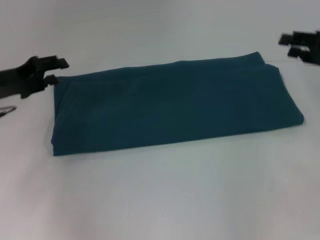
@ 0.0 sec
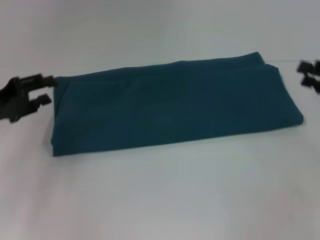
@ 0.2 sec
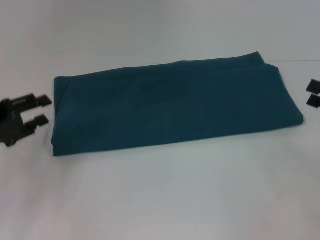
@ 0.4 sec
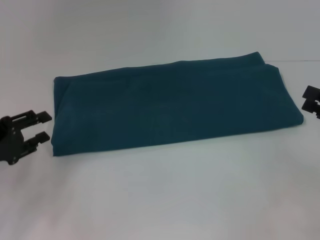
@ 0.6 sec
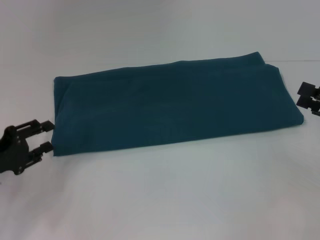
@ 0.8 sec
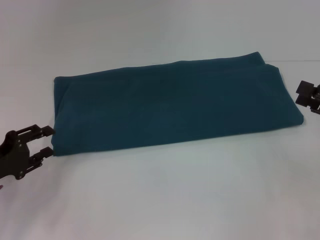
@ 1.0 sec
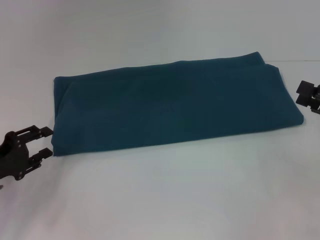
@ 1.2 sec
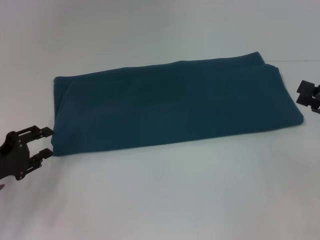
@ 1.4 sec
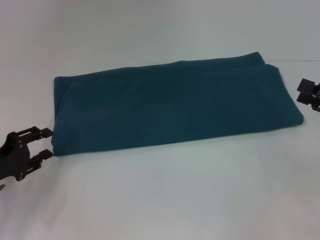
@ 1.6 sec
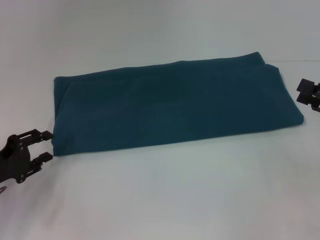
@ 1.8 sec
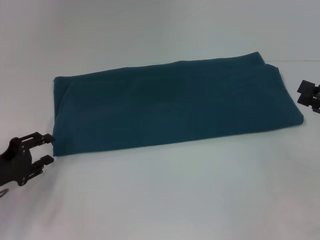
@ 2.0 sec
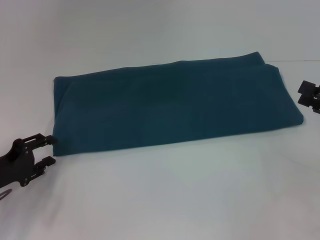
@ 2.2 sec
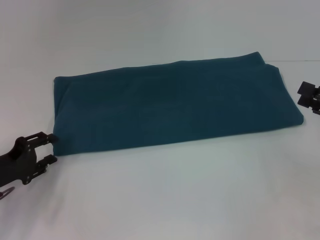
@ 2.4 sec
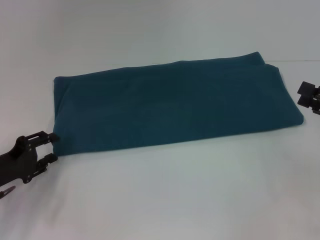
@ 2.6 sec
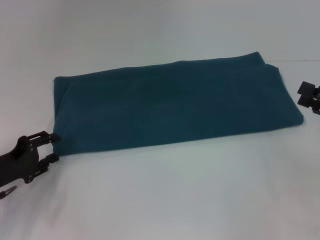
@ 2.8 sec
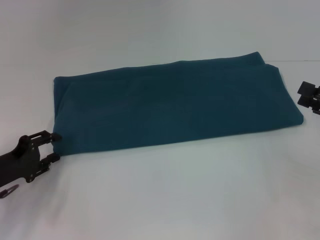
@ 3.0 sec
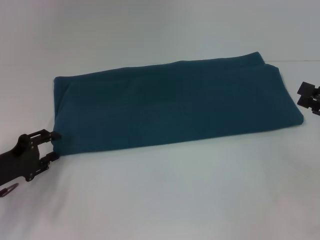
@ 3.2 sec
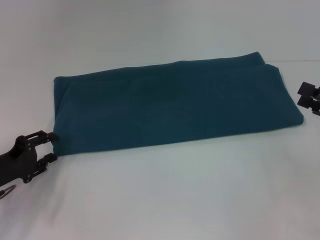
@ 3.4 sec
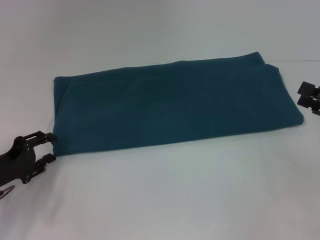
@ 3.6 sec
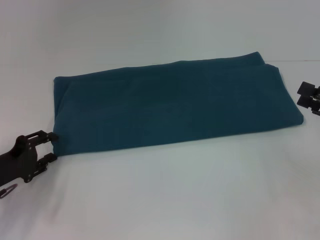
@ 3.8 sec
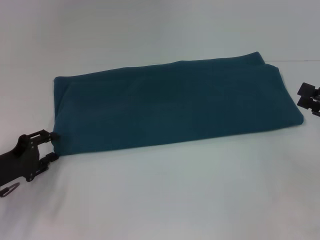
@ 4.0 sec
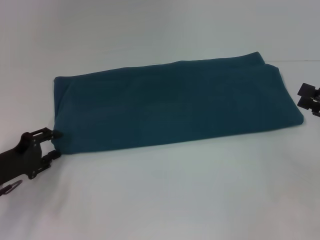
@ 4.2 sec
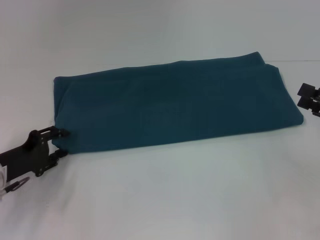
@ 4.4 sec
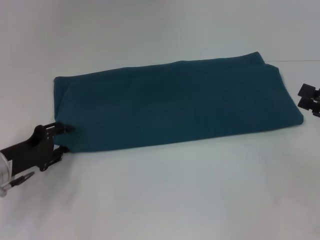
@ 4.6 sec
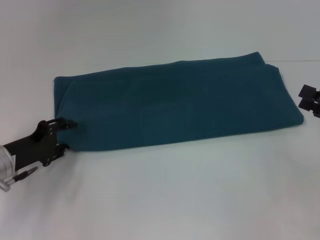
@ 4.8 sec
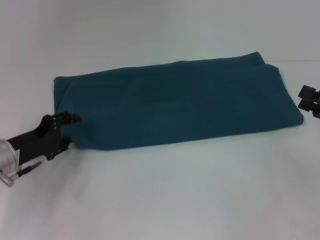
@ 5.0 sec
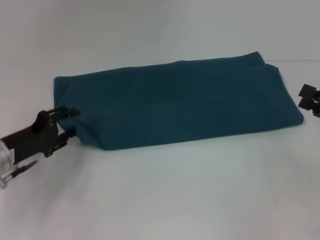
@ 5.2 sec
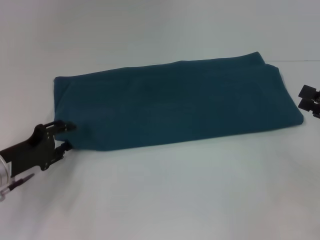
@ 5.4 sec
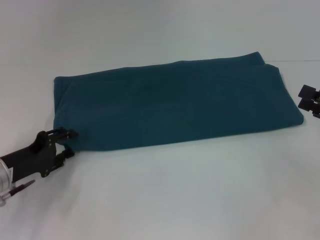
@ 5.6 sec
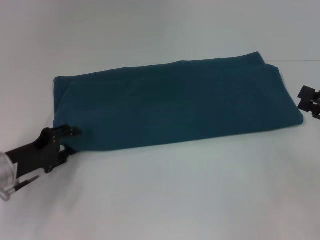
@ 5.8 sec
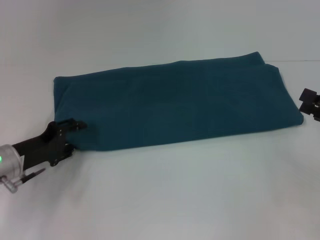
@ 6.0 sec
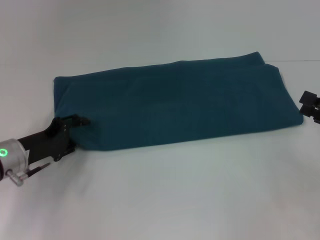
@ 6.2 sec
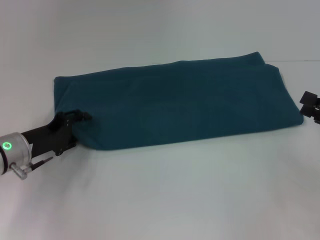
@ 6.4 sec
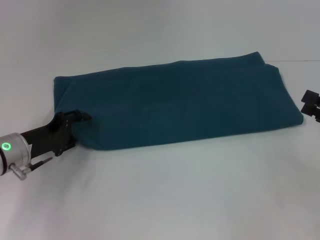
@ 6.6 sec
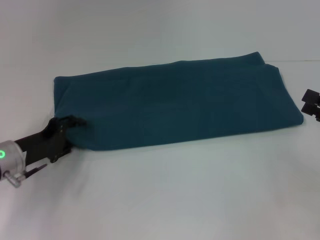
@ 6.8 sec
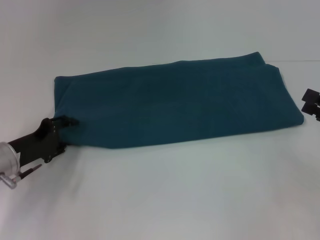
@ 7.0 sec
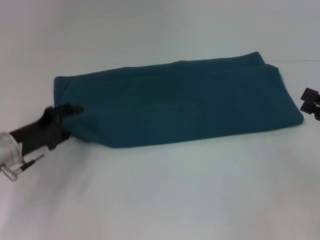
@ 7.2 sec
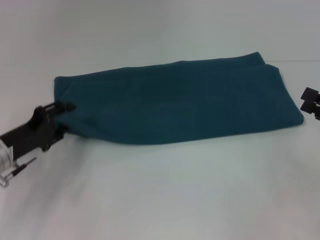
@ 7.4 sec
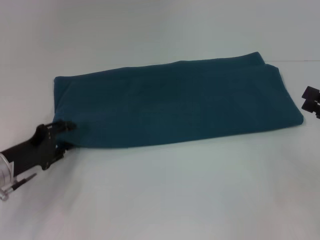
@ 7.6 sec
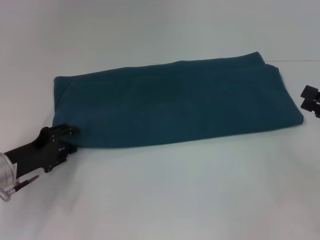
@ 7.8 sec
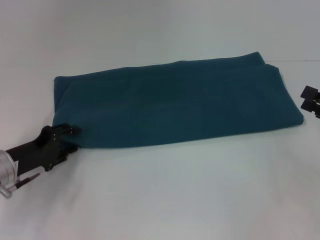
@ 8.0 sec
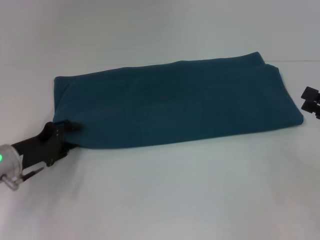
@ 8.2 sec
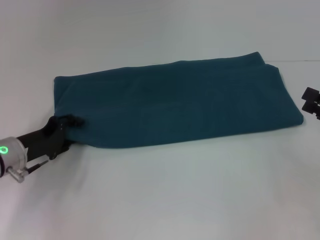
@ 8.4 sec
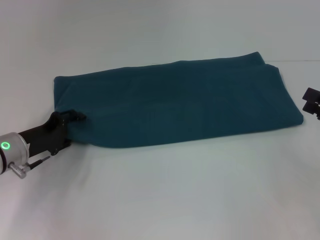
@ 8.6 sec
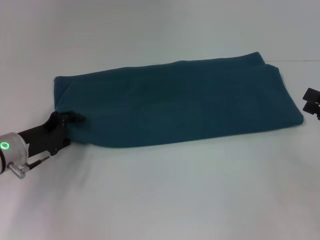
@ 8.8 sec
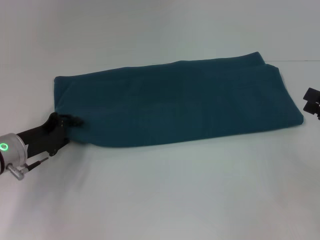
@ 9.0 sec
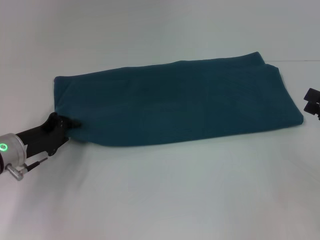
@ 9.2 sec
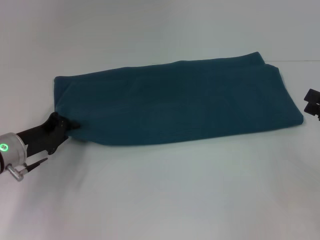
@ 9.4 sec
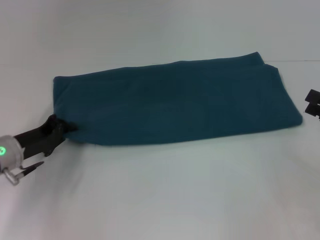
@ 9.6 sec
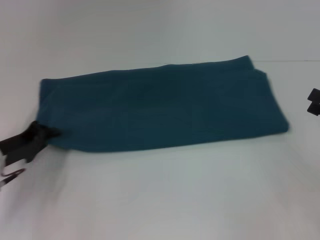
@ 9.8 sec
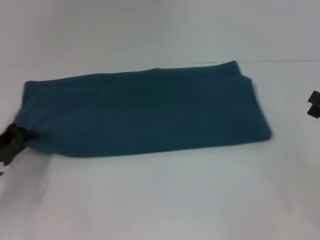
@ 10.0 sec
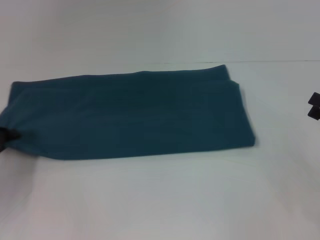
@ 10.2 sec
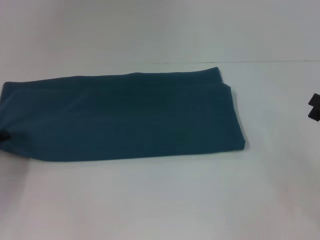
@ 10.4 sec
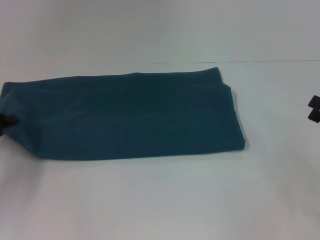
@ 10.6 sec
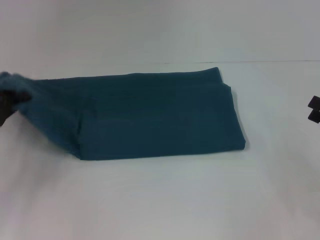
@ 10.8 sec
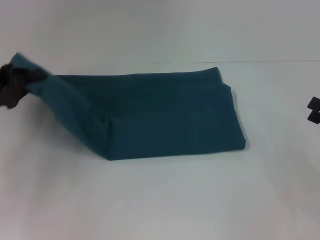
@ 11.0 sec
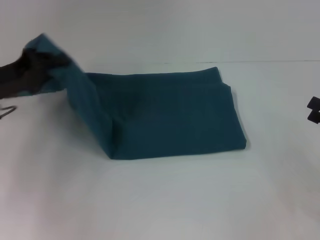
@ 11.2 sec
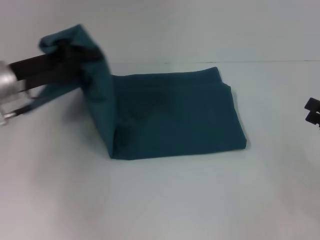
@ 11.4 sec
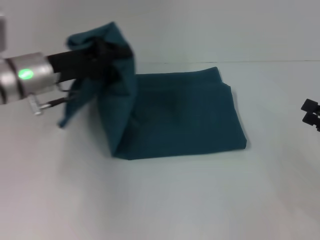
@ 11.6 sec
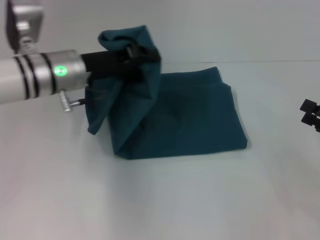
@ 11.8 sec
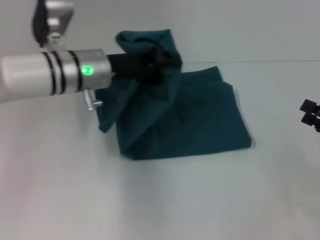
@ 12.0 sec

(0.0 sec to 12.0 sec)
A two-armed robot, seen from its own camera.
0.0 sec - 1.6 sec: The left gripper shifts about 15 cm backward and downward. Meanwhile the right gripper shifts roughly 10 cm backward.
1.6 sec - 4.4 sec: The grippers make only small movements.
4.4 sec - 9.0 sec: The grippers move only a little.
9.0 sec - 10.4 sec: The left gripper shifts approximately 10 cm to the left, and closes its fingers.
10.4 sec - 12.0 sec: The left gripper moves to the right, forward and upward, approximately 25 cm.

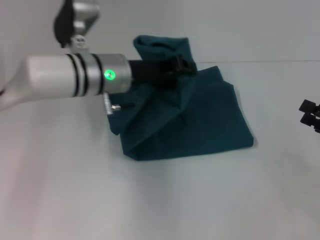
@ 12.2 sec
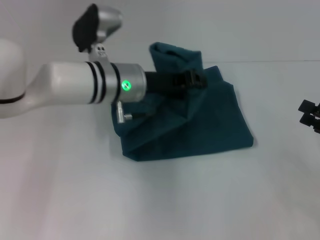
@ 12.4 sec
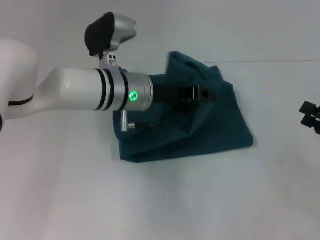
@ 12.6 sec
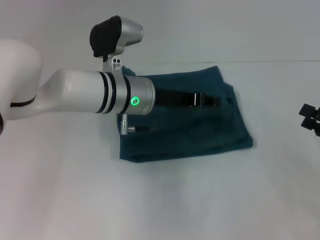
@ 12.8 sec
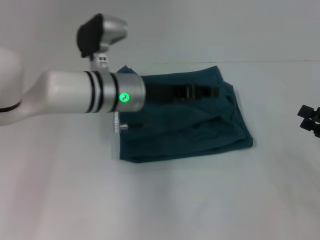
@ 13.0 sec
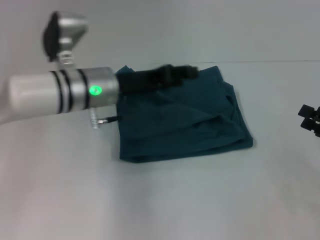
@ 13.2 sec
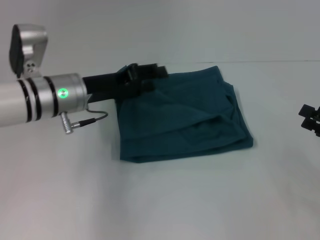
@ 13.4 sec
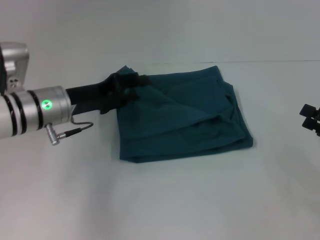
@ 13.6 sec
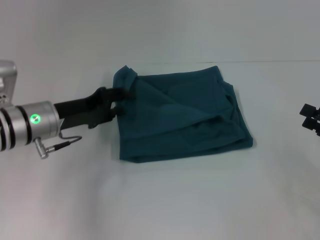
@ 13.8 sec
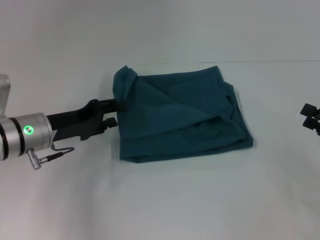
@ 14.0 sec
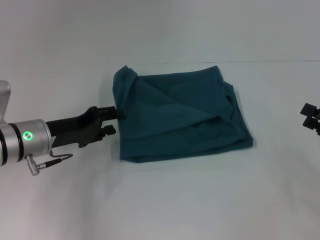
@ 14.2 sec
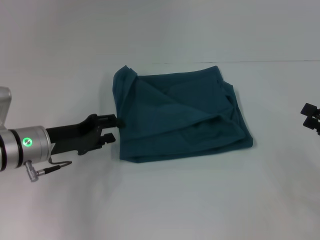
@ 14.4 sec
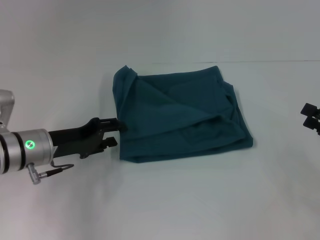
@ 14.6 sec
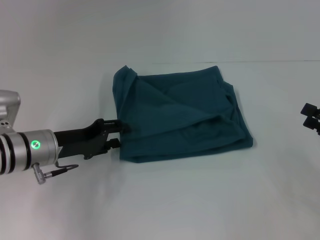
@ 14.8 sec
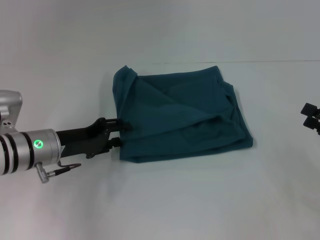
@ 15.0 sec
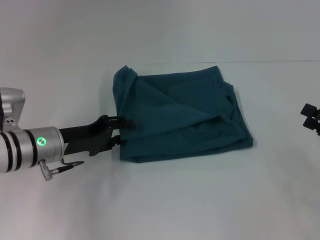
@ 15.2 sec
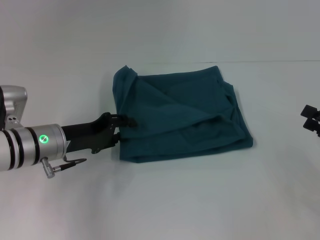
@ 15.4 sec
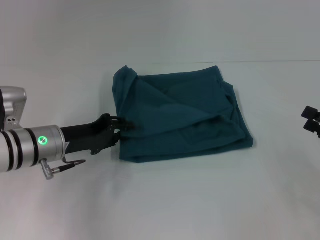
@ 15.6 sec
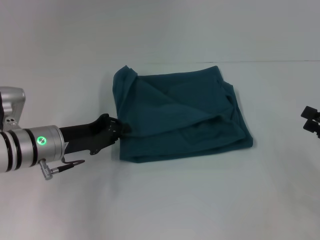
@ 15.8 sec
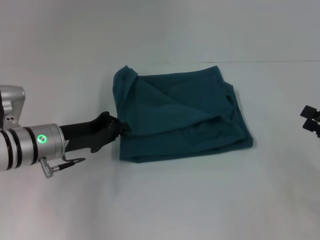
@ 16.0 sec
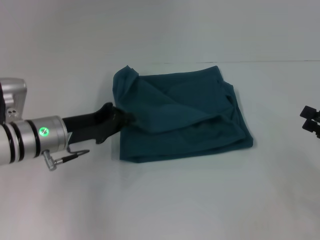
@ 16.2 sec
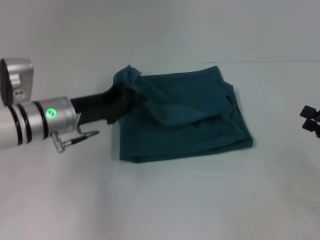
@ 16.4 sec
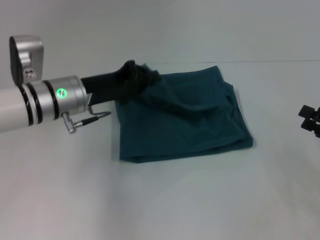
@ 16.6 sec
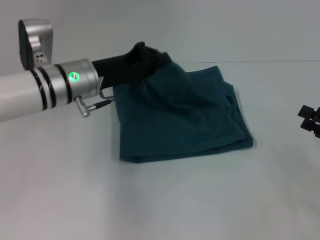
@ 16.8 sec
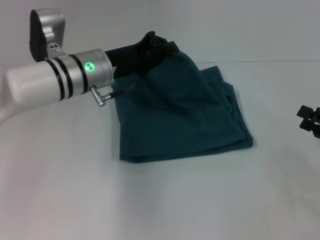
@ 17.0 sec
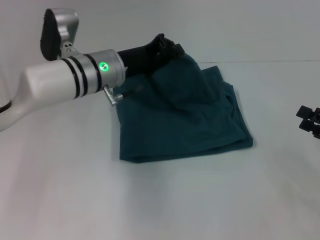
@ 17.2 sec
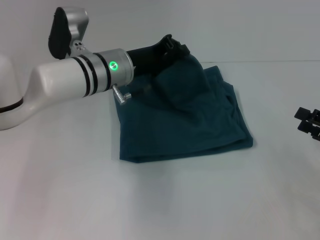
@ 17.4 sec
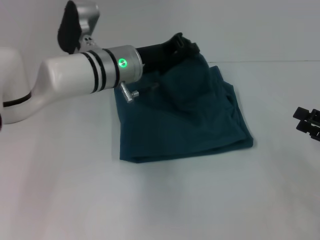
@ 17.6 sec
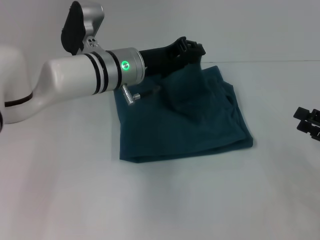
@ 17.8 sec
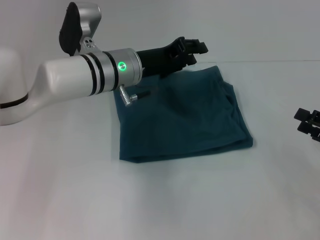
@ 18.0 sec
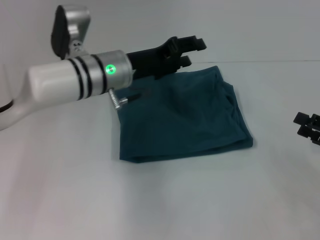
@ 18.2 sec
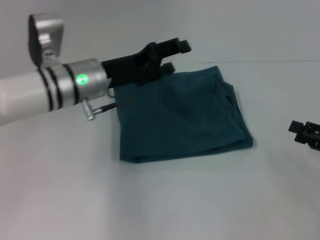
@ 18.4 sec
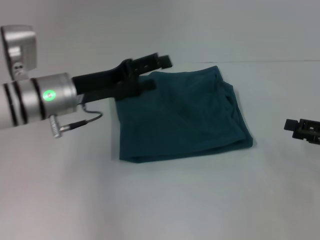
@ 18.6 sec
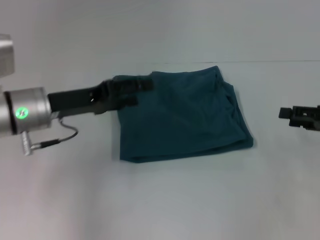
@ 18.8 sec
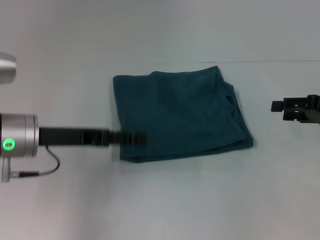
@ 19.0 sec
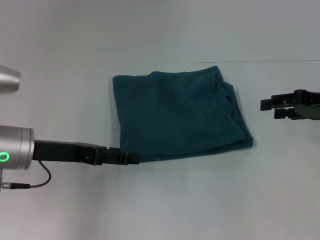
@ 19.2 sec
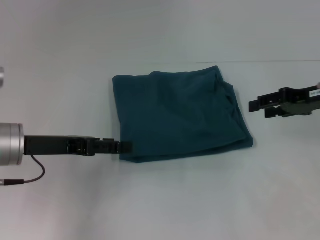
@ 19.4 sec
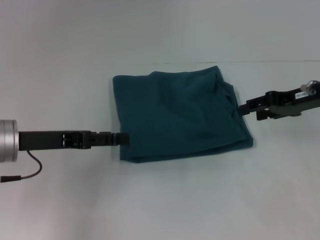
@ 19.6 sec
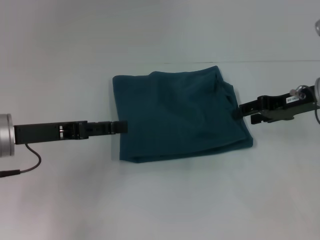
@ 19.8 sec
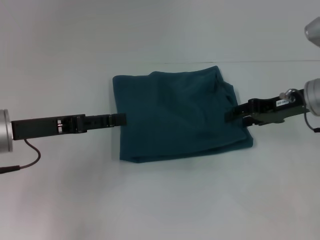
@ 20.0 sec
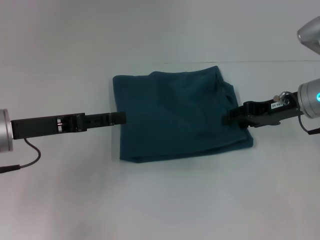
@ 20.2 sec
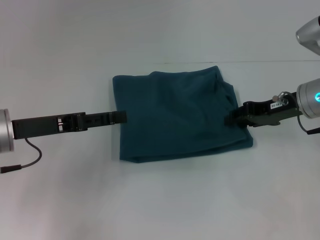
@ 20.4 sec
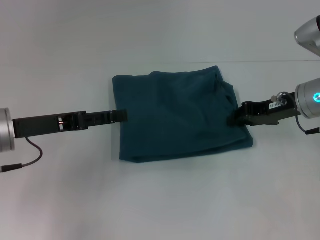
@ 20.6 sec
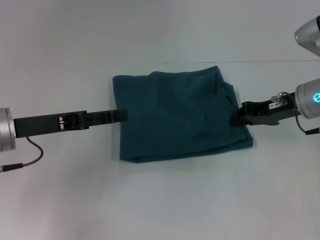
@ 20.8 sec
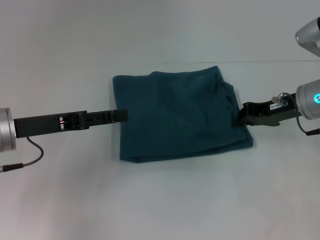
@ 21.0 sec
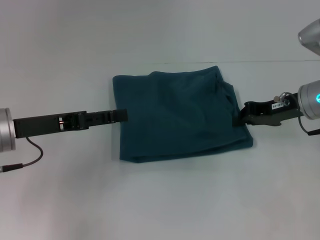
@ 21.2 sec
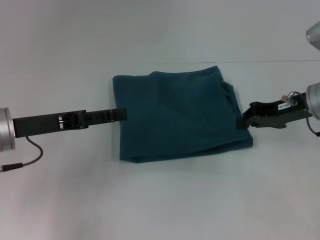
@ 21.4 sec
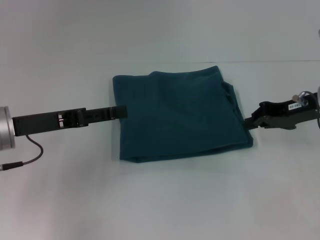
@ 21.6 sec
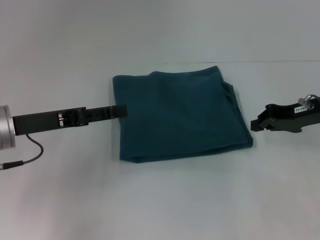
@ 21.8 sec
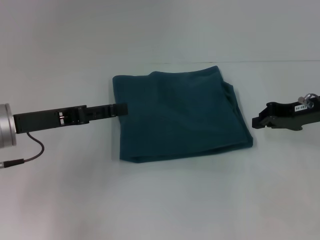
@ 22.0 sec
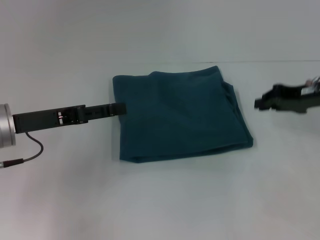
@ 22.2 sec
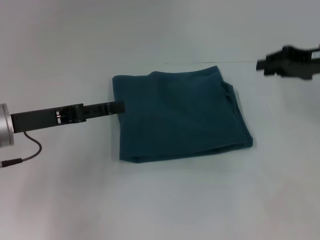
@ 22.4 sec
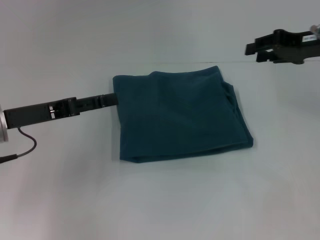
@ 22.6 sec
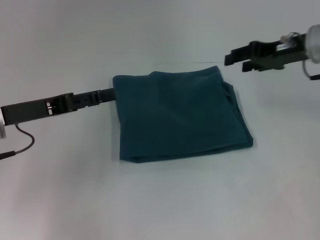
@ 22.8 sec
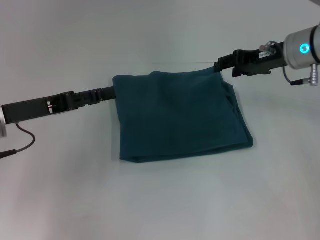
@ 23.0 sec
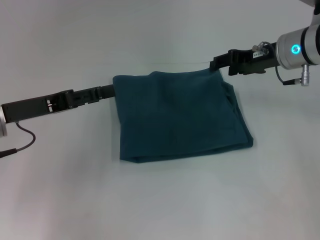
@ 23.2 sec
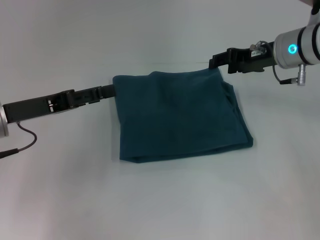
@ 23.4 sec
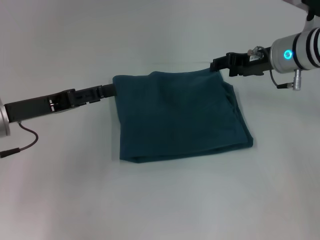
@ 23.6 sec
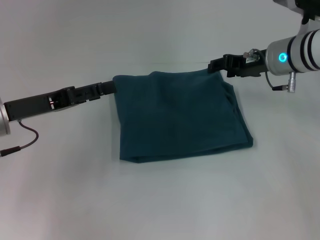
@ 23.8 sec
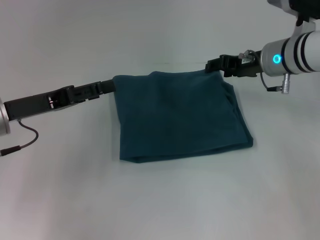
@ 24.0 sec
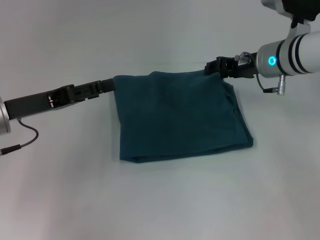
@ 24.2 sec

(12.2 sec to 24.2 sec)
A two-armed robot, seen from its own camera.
12.2 sec - 13.8 sec: The left gripper moves to the left and downward, about 10 cm, and opens up.
13.8 sec - 15.2 sec: The grippers move only a little.
15.2 sec - 16.6 sec: The left gripper is displaced upward by approximately 5 cm, and closes its fingers.
16.6 sec - 18.2 sec: The left gripper heads to the right, covering about 5 cm, and opens up.
18.2 sec - 19.8 sec: The right gripper shifts roughly 15 cm forward, to the left and upward. The left gripper goes some 15 cm to the left and backward, and opens its fingers.
19.8 sec - 21.2 sec: The right gripper closes its fingers.
21.2 sec - 22.6 sec: The right gripper goes approximately 10 cm upward.
22.6 sec - 24.2 sec: The right gripper moves to the left and downward, roughly 10 cm.
